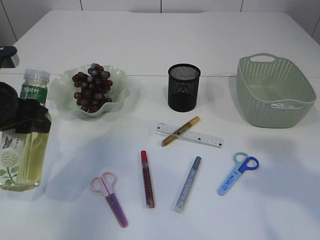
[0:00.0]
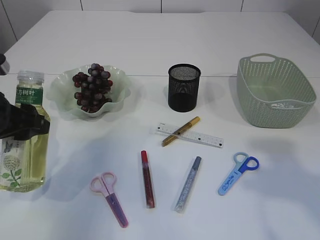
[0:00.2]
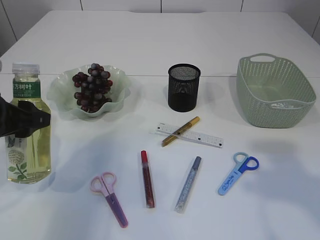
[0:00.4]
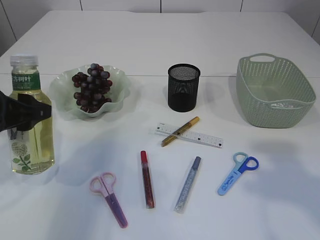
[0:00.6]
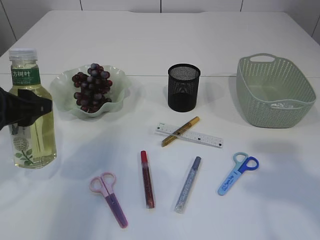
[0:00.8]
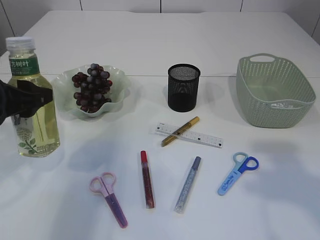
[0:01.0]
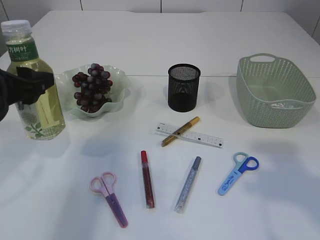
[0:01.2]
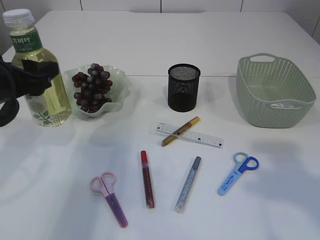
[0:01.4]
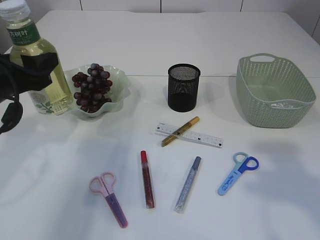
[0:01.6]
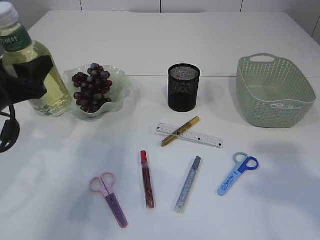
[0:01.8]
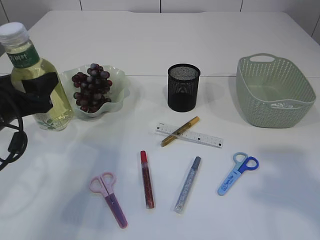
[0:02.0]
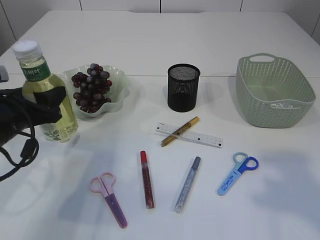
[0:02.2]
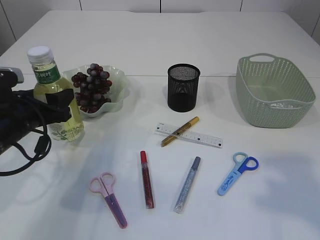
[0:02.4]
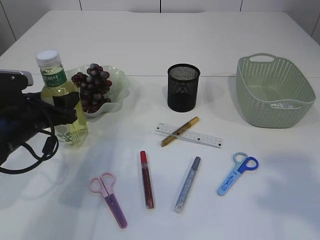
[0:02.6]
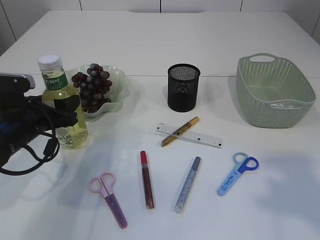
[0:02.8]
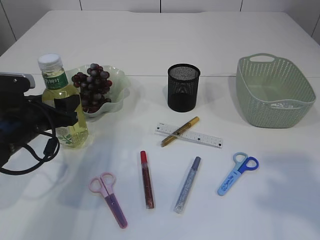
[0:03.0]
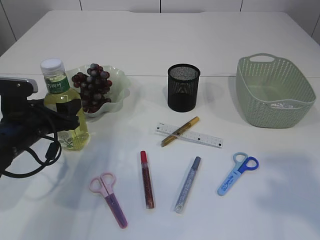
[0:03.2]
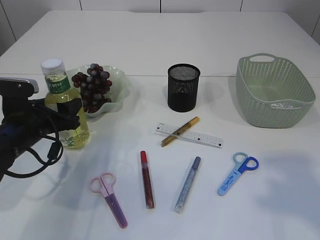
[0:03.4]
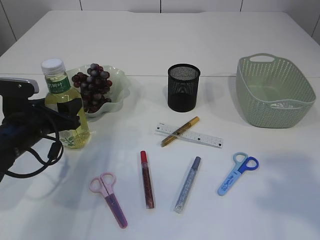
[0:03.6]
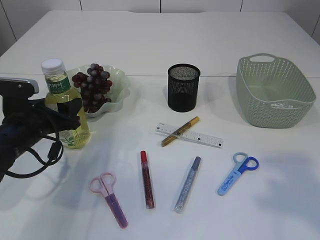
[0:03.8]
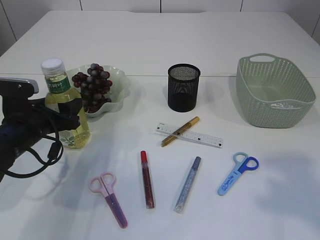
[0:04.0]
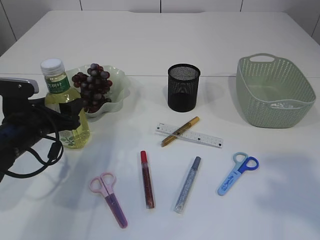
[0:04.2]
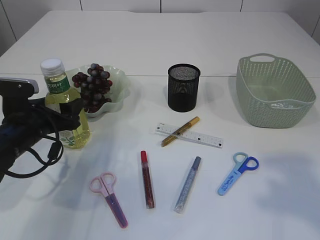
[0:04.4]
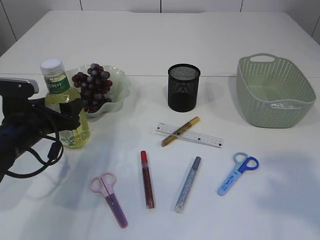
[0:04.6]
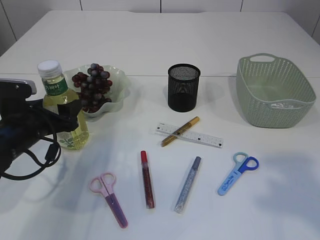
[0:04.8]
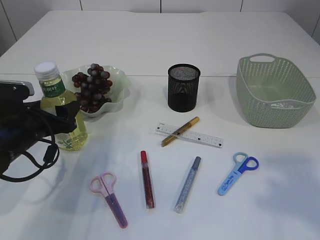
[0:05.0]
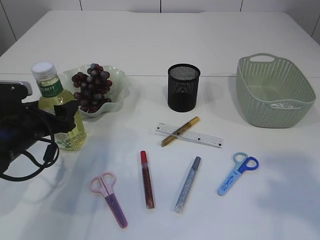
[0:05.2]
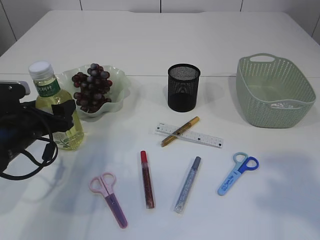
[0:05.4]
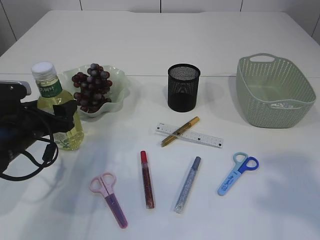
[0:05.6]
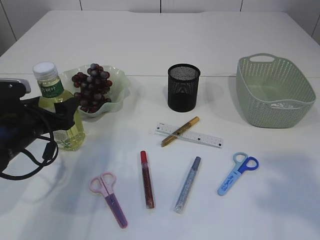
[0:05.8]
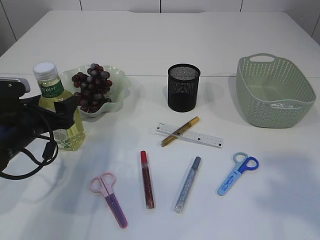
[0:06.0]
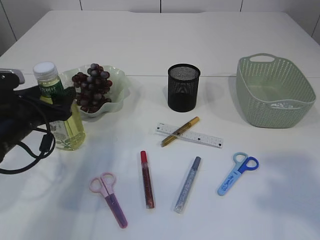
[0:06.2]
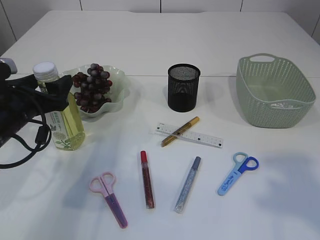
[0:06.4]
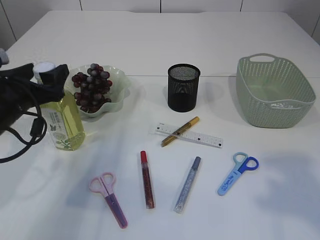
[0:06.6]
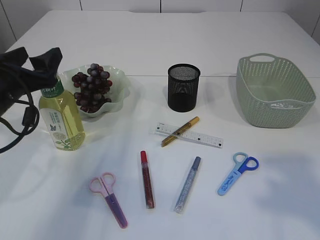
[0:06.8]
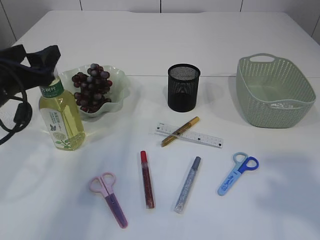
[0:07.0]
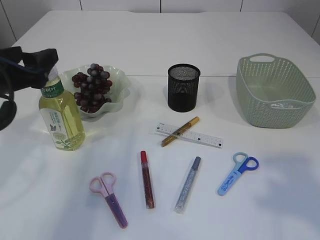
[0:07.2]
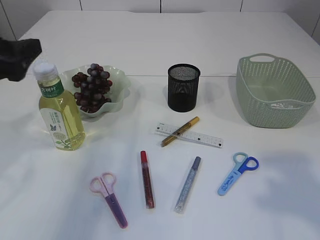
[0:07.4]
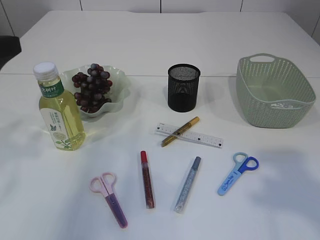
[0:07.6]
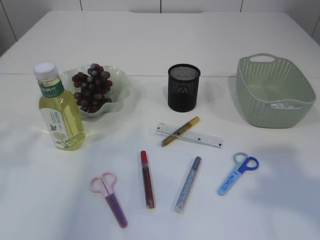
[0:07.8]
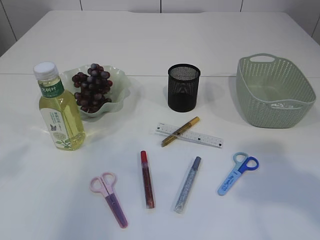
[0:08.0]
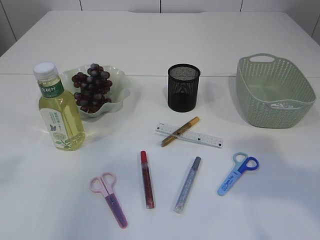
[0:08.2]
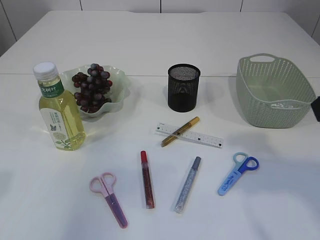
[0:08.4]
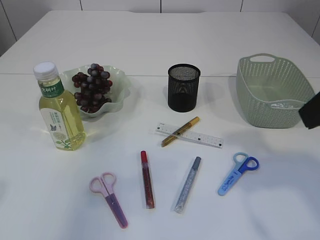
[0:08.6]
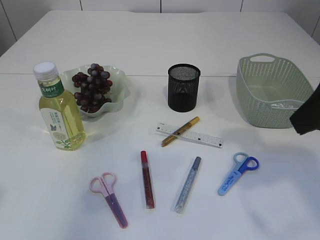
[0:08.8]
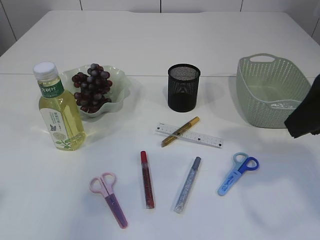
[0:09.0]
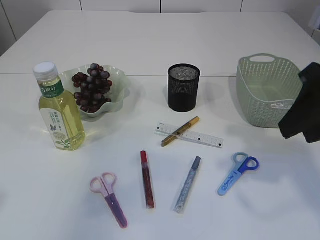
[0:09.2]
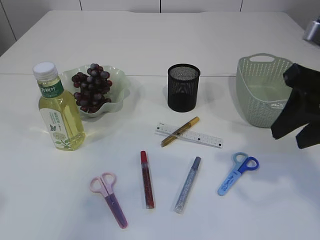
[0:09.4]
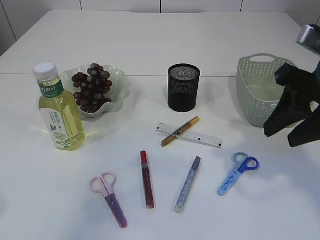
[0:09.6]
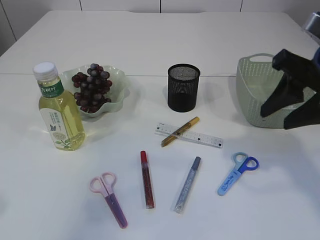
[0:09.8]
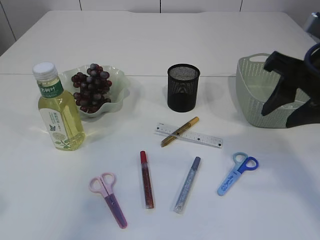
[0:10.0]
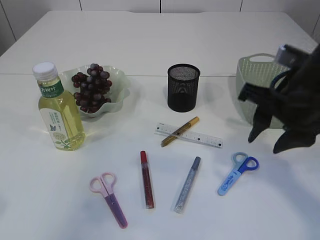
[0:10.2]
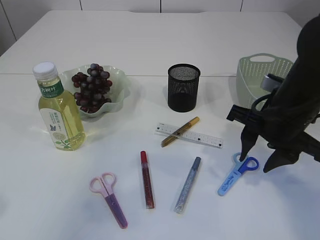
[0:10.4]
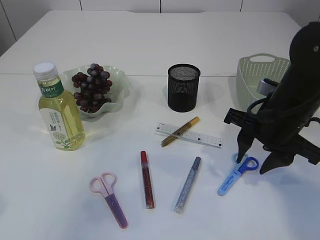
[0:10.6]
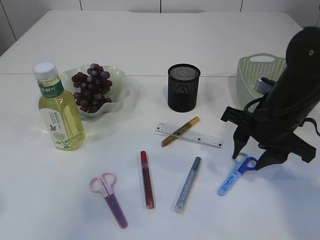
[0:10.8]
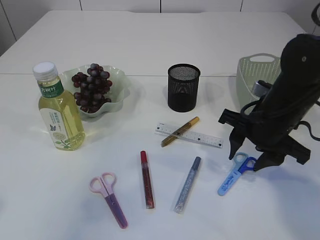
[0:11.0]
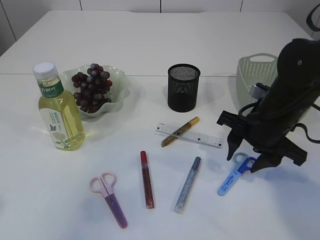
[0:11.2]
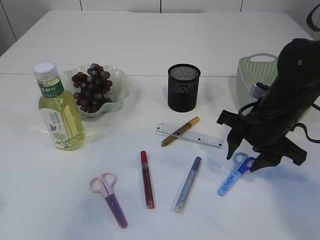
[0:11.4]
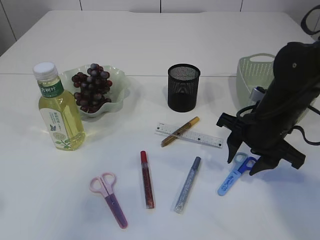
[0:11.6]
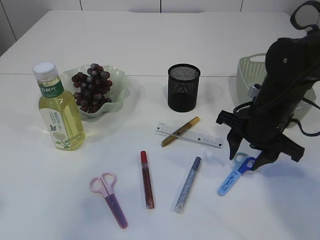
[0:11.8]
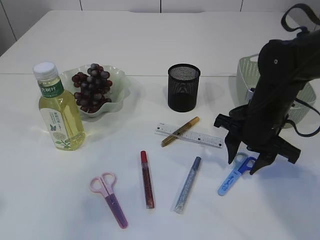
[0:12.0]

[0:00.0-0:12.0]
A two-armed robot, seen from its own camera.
Step, 0:00.2 to 0:07.4: Place the bottle.
0:01.6 to 0:03.0: The left gripper heads downward, covering roughly 10 cm.
0:03.0 to 0:04.4: Neither gripper changes place.
0:04.4 to 0:06.0: The two grippers keep their place.
0:06.0 to 0:07.6: The left gripper shifts approximately 20 cm upward and backward.
0:07.6 to 0:09.0: The right gripper shifts roughly 10 cm forward and downward; the left gripper shifts approximately 10 cm backward.
0:09.0 to 0:10.4: The right gripper travels downward and forward by about 15 cm.
0:10.4 to 0:12.0: The right gripper shifts about 5 cm downward.

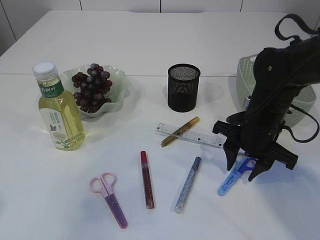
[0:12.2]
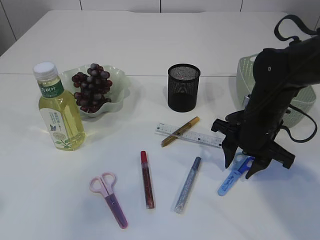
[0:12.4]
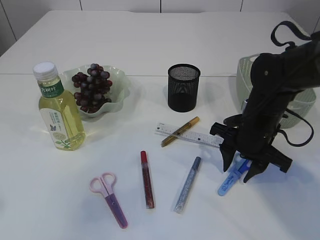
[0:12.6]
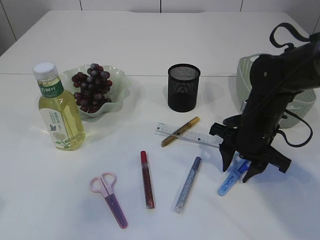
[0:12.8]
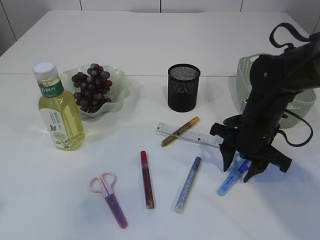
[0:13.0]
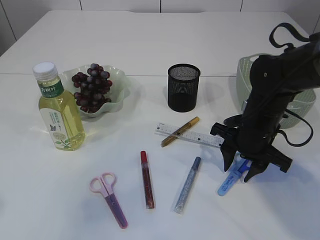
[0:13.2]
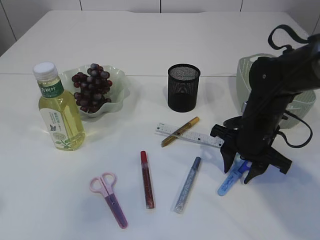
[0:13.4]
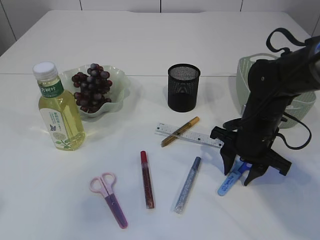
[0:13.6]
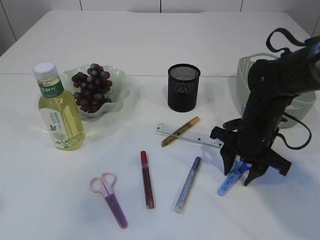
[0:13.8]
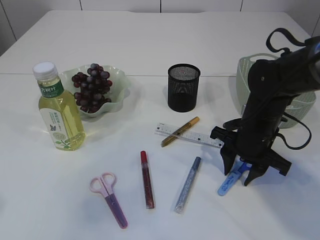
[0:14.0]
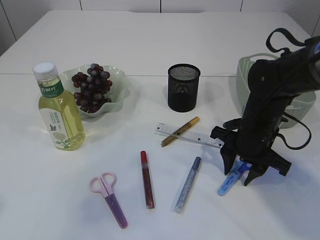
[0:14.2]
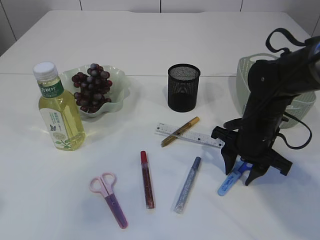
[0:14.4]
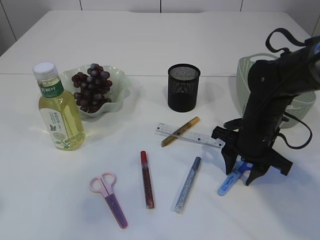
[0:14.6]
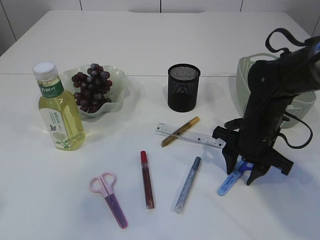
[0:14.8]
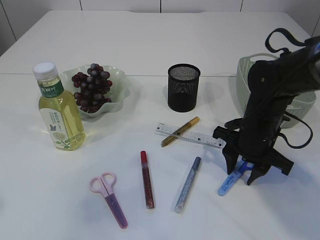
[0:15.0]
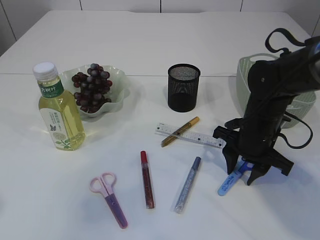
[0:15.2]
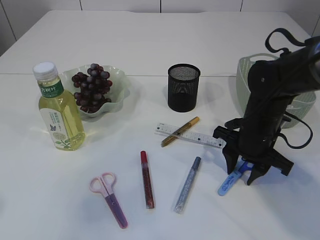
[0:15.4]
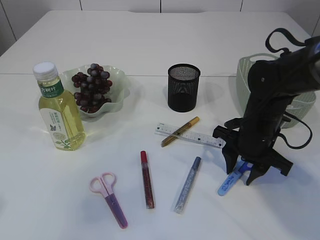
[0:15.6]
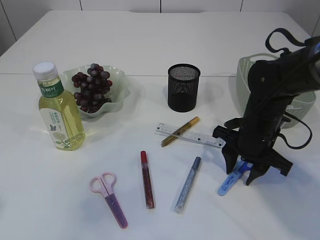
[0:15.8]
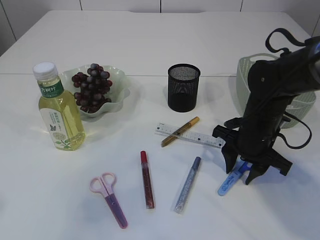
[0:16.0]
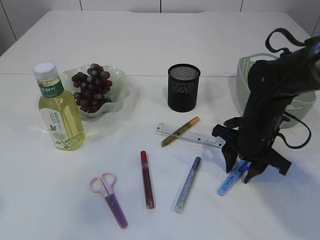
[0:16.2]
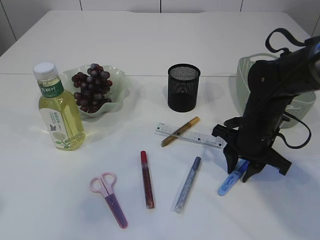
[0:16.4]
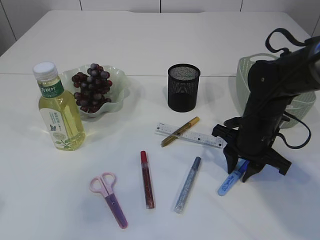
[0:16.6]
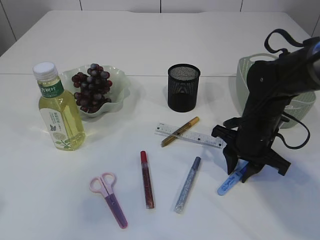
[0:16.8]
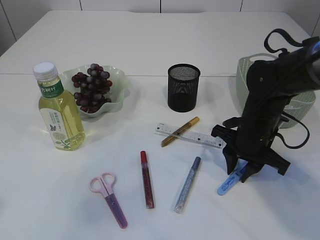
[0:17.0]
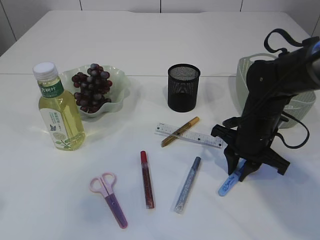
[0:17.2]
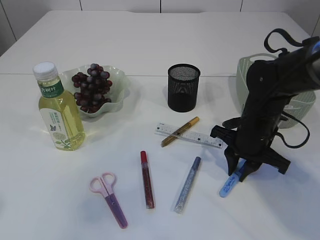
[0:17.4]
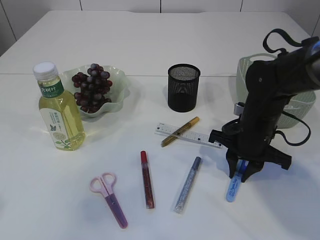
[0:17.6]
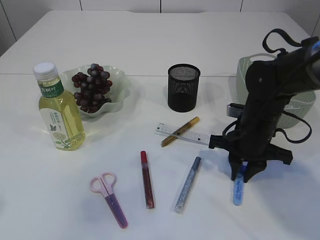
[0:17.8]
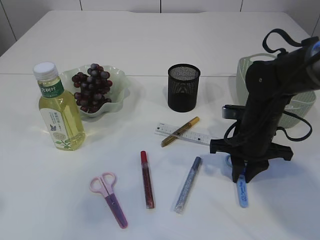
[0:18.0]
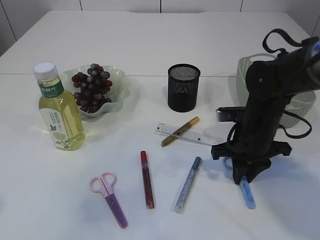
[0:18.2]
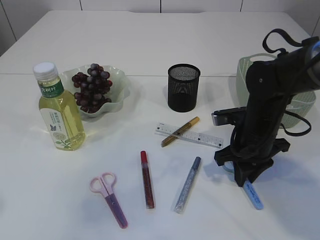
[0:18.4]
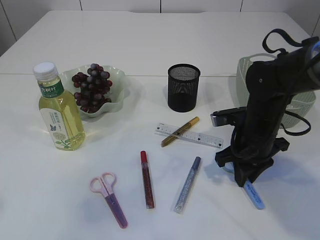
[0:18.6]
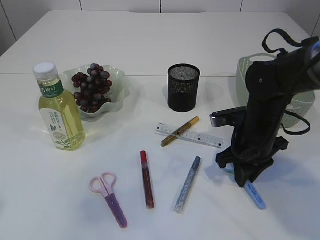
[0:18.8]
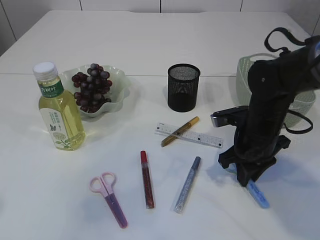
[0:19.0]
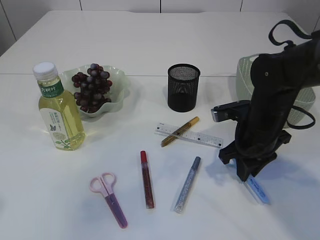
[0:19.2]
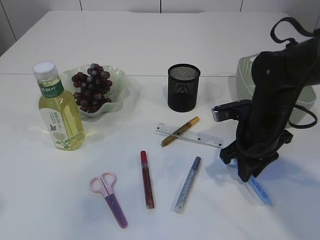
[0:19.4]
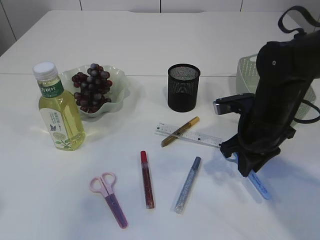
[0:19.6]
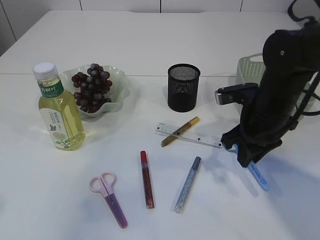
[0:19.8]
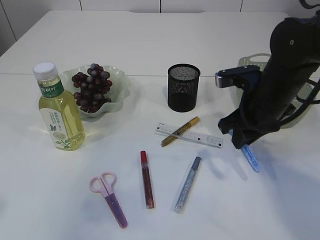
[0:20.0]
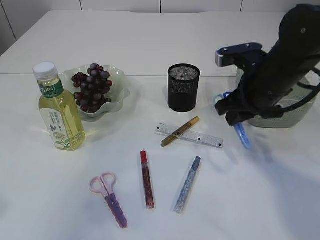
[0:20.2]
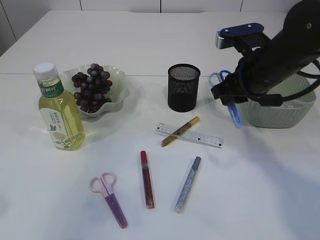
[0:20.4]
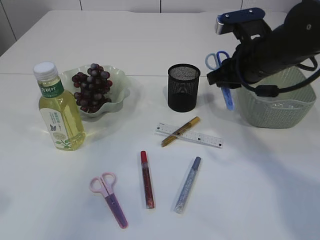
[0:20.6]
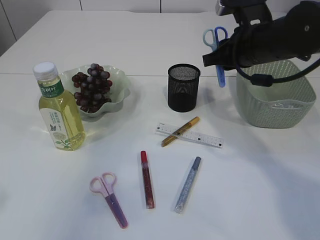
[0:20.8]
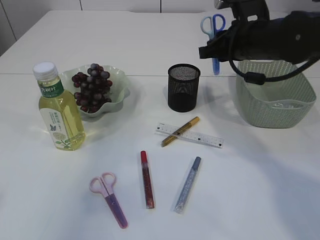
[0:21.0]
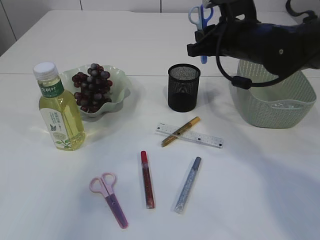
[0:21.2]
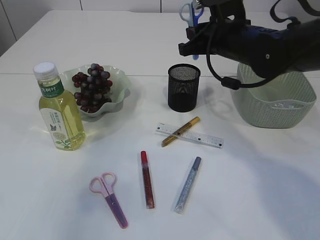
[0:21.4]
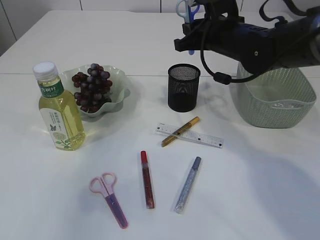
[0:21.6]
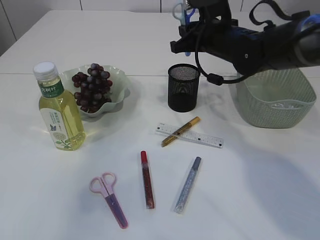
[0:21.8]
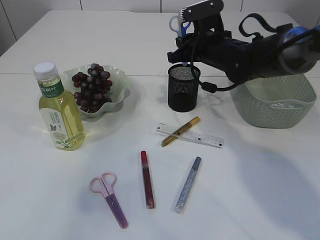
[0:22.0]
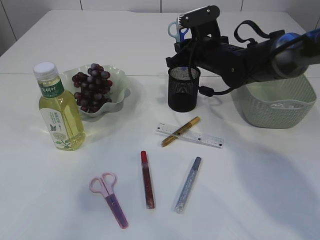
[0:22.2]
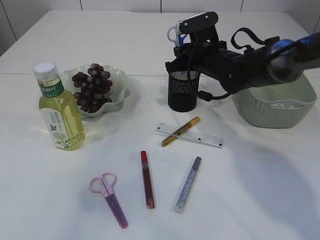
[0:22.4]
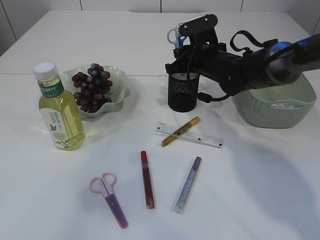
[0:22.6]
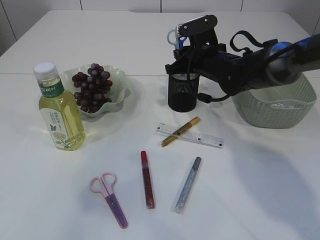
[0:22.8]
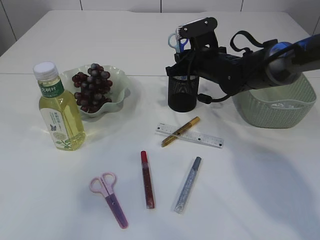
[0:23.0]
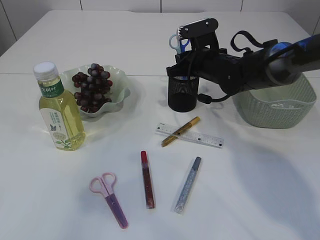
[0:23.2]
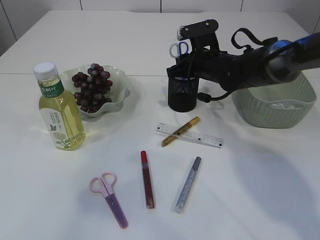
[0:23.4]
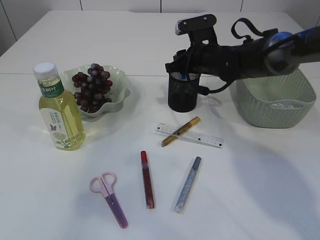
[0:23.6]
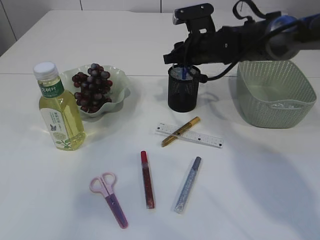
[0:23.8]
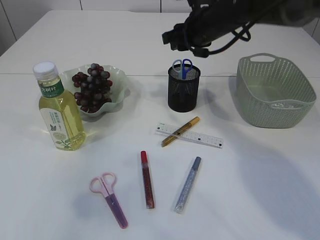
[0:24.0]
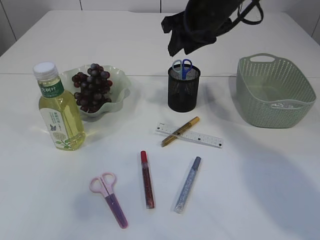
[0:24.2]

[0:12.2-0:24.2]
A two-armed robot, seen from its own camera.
Step, 0:12.2 to 0:20.0: pick up the blue scissors.
0:12.2 to 0:13.8: The grippers make only small movements.
0:13.8 to 0:16.6: The two grippers keep their place.
0:18.2 to 0:19.8: The right gripper goes about 5 cm upward.
0:19.8 to 0:21.2: The right gripper travels upward and forward by roughly 10 cm.
0:21.2 to 0:22.6: The right gripper shifts some 10 cm downward and forward.
0:22.6 to 0:24.2: The right gripper heads upward, covering about 10 cm.
